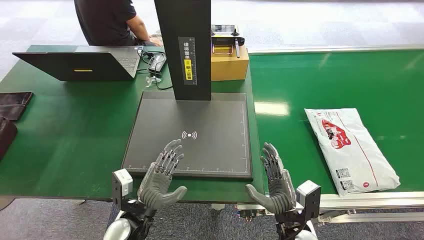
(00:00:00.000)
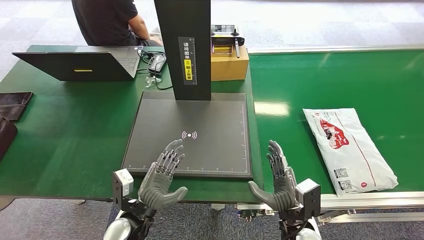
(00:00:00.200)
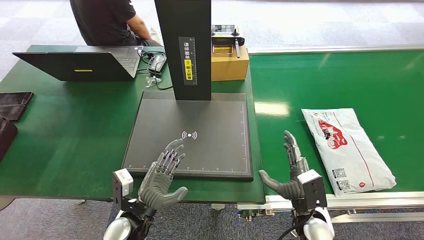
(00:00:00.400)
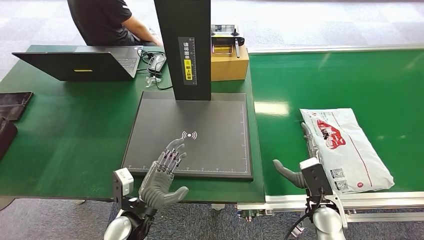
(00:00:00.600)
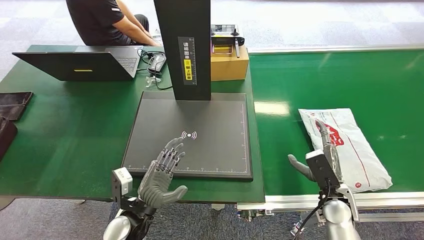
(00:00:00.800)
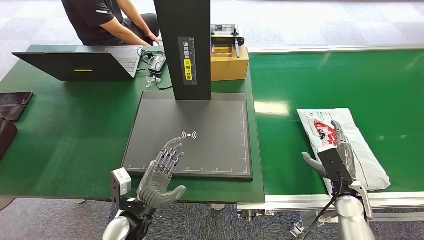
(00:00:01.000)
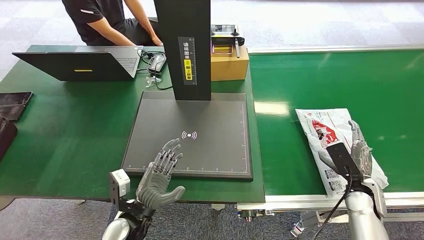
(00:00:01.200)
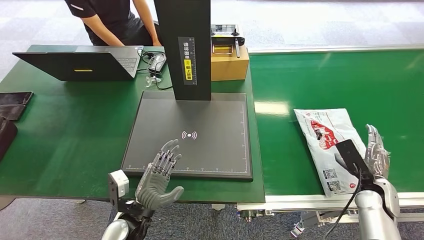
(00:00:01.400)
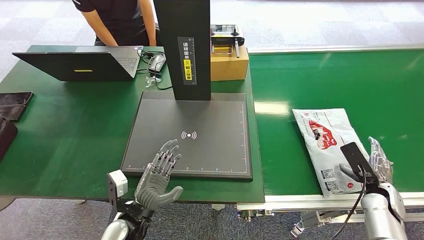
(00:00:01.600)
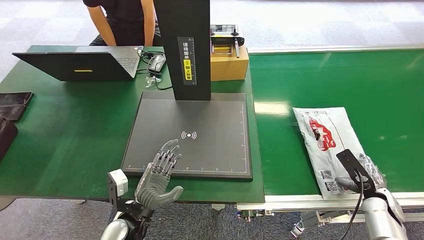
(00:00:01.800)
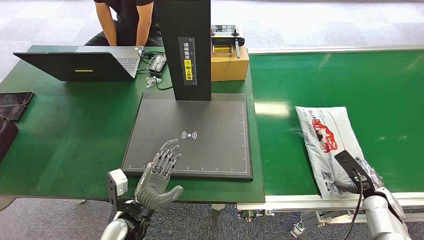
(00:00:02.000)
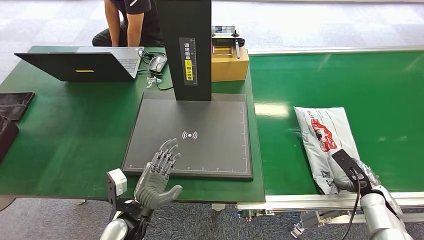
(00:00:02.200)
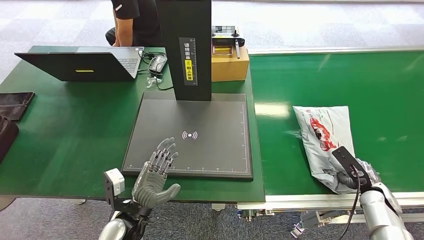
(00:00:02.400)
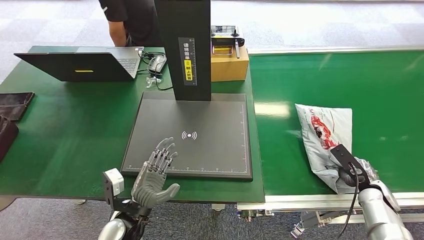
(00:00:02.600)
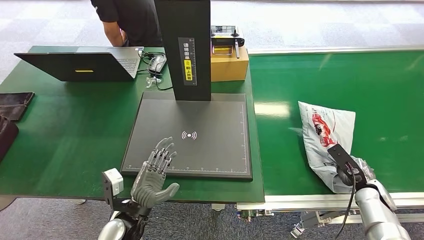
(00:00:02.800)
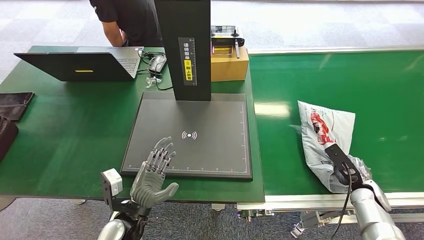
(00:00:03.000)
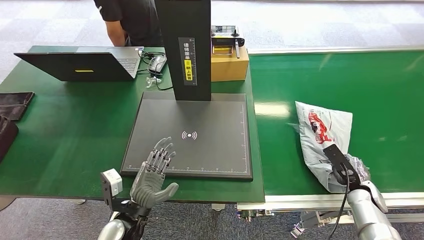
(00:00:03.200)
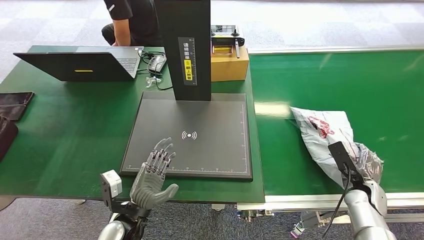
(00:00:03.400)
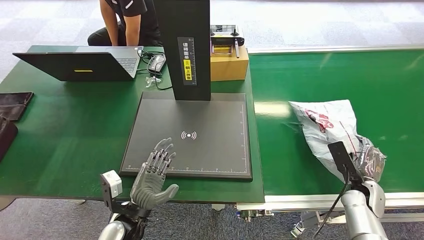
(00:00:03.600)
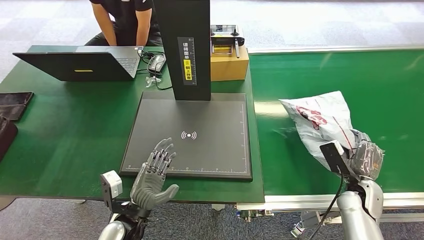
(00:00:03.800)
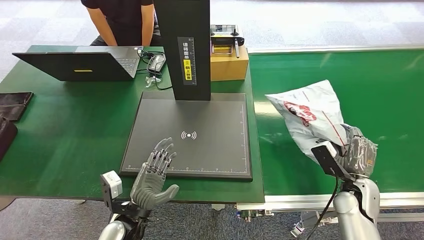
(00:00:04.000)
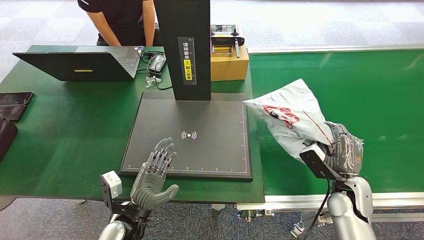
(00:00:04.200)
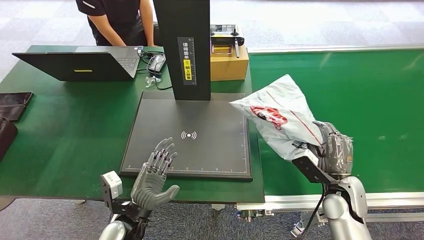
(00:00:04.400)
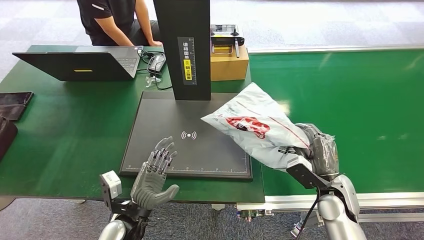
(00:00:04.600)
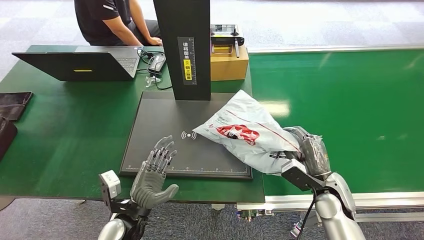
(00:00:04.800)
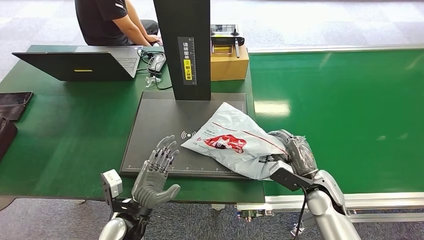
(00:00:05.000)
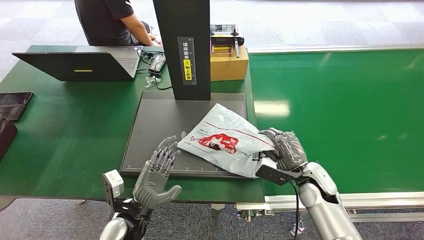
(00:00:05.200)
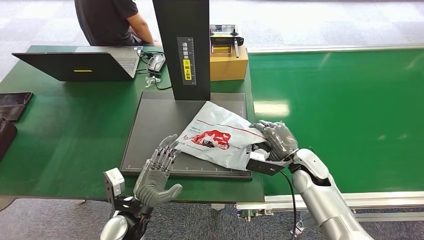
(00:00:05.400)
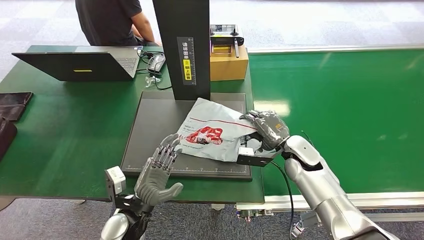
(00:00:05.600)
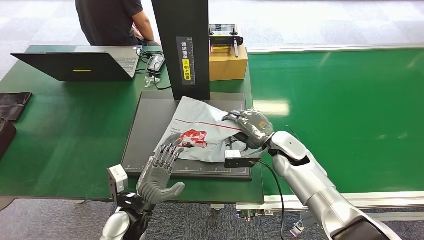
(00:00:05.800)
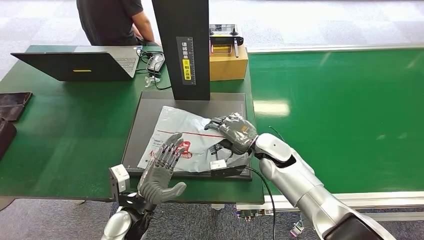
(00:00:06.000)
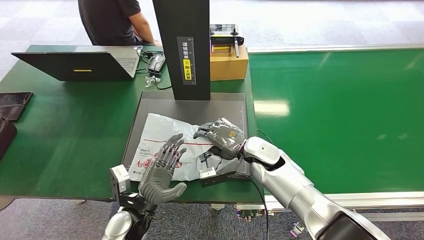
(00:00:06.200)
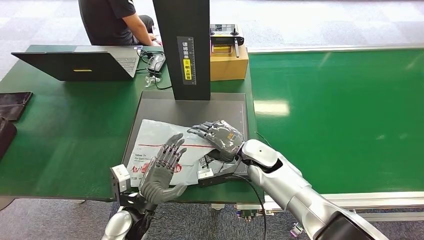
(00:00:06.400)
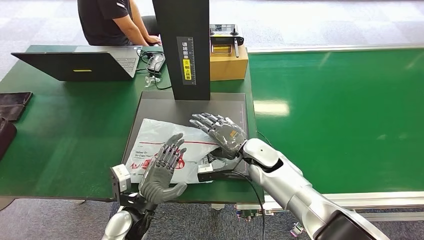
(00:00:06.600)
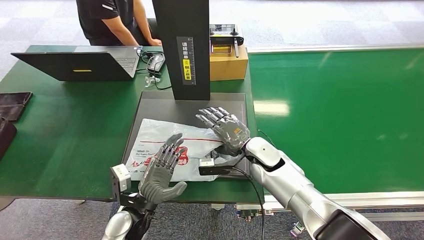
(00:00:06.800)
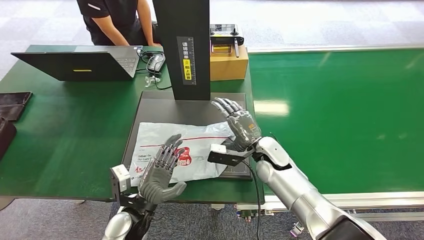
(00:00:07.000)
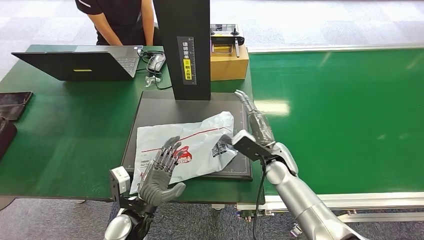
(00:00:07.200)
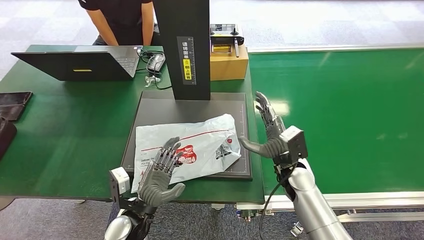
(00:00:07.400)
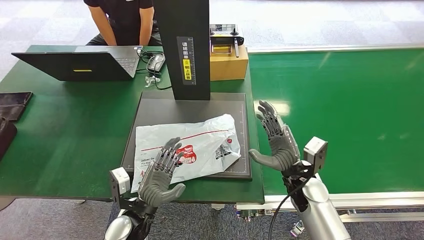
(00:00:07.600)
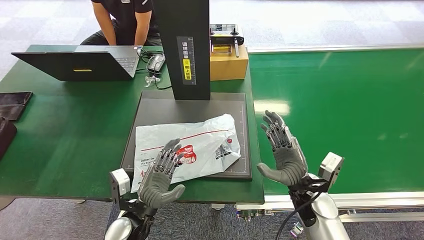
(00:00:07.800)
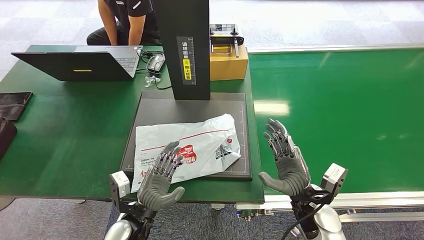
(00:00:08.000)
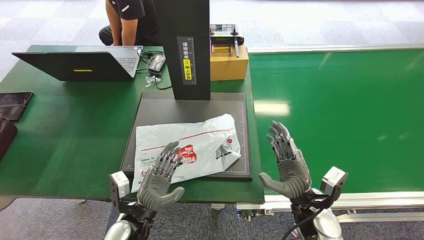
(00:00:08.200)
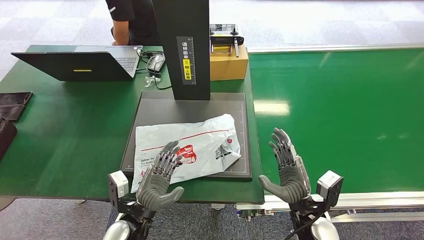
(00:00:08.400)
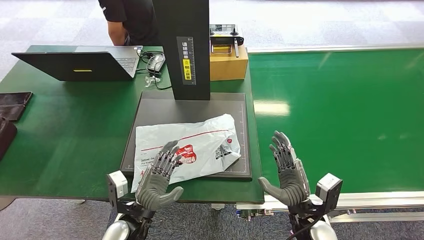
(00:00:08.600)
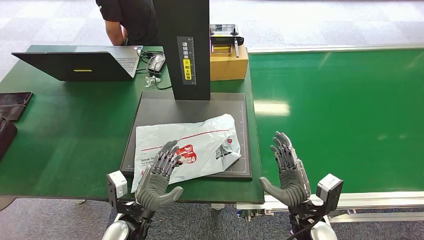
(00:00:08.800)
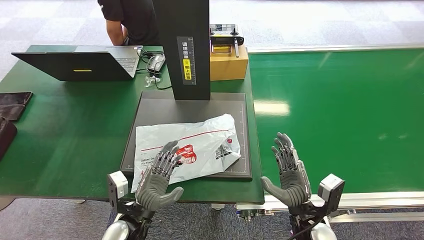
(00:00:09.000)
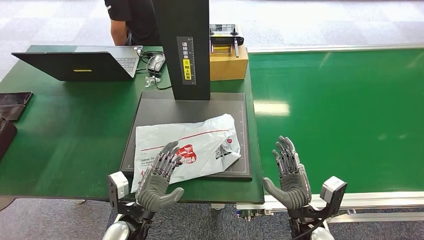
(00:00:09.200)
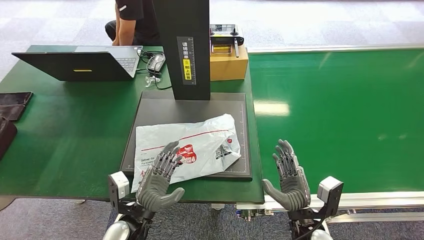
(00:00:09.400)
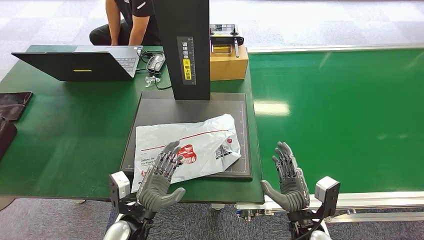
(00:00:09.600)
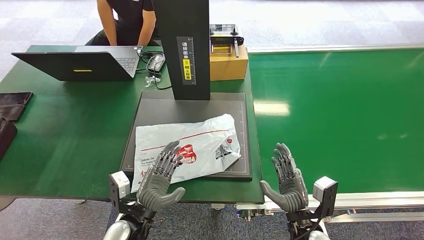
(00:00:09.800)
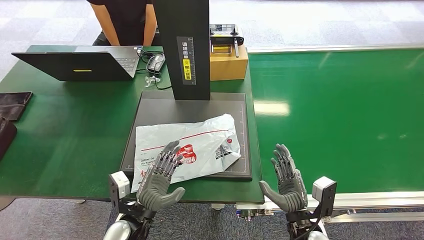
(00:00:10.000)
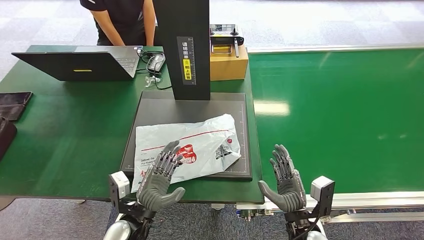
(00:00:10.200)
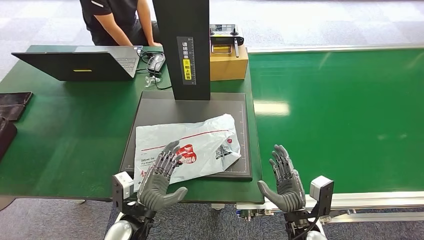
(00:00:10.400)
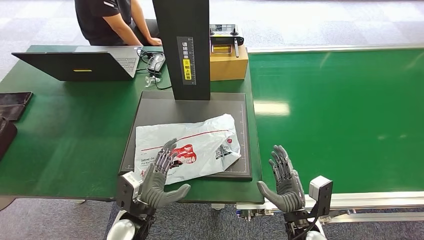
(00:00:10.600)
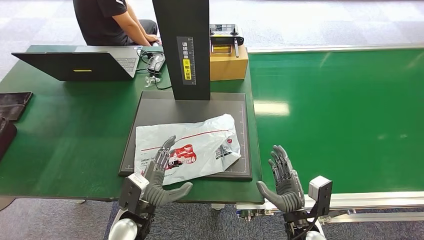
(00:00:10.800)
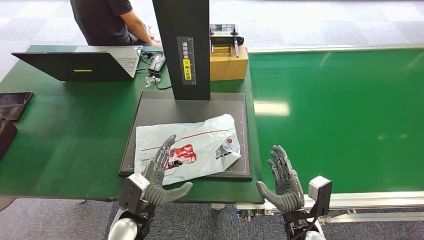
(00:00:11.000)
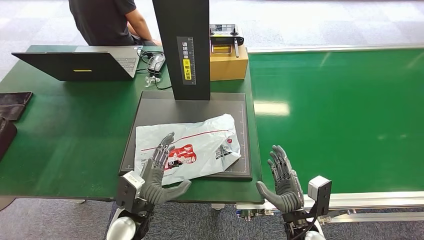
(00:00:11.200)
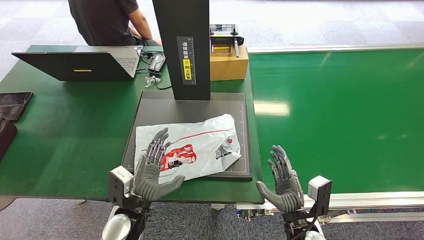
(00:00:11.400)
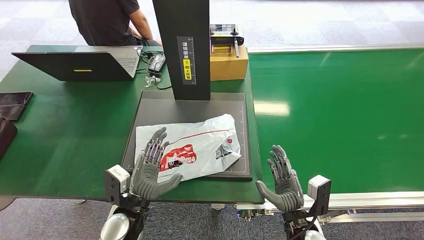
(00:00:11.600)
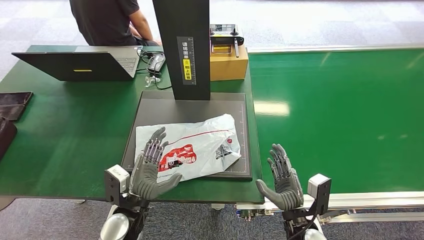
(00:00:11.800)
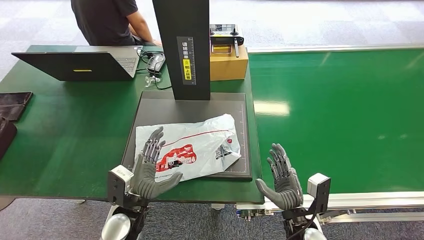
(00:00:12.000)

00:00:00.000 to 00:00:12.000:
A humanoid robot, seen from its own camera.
Task of the whole recording: Weigh the package on the weighing device and place it in the left basket.
Step, 00:00:00.000 to 00:00:04.400: Pick up the package from the conveyor belt.
Step, 00:00:04.600 to 00:00:07.600: Place the package onto the inbound machine.
00:00:03.000 to 00:00:04.400: The right hand shifts roughly 15 cm to the left and upward.
00:00:06.000 to 00:00:07.600: The right hand heads backward and to the right, covering some 10 cm.
00:00:07.600 to 00:00:09.000: The right hand shifts roughly 10 cm backward.
00:00:09.000 to 00:00:10.400: The hands stay close to where they were, moving slightly.
00:00:10.400 to 00:00:12.000: There are only small adjustments of the hands.

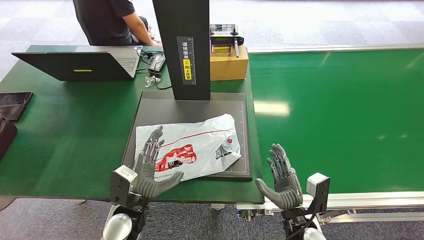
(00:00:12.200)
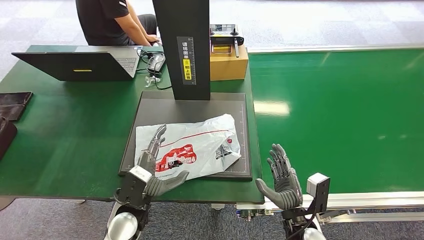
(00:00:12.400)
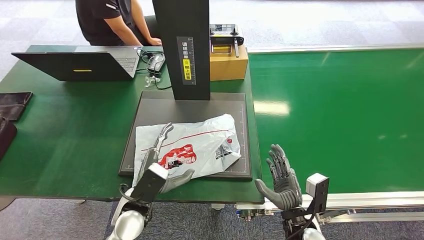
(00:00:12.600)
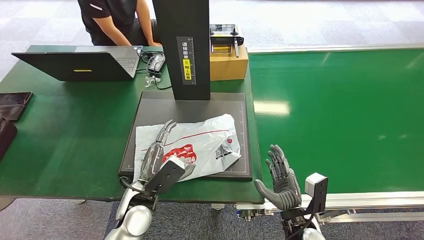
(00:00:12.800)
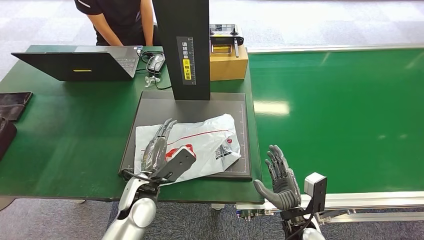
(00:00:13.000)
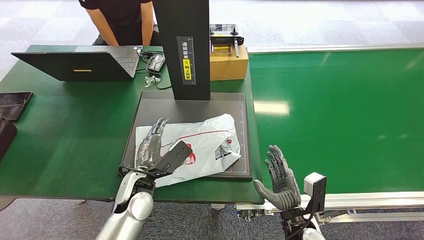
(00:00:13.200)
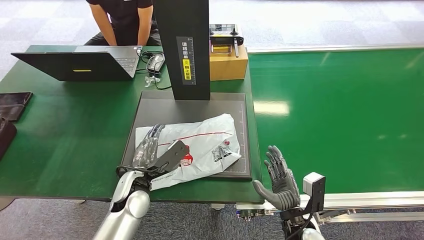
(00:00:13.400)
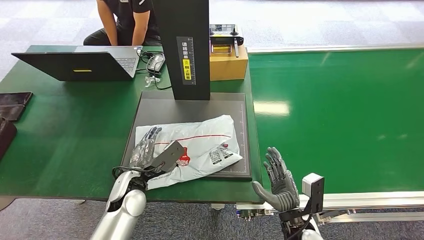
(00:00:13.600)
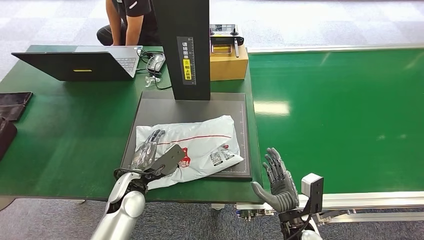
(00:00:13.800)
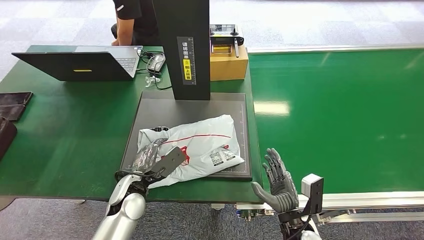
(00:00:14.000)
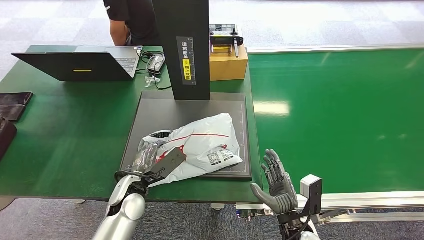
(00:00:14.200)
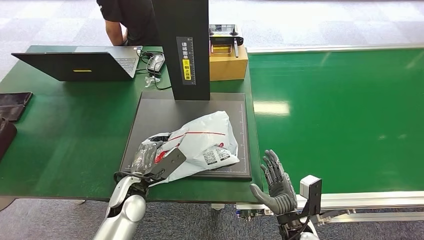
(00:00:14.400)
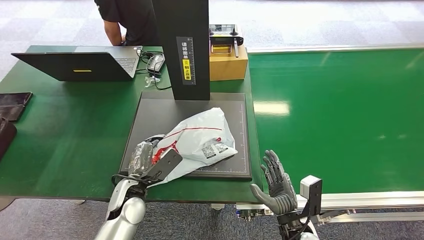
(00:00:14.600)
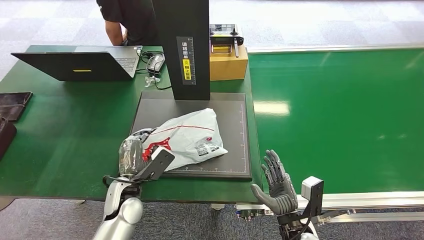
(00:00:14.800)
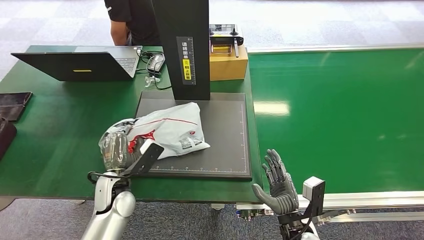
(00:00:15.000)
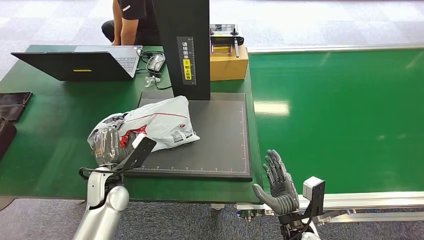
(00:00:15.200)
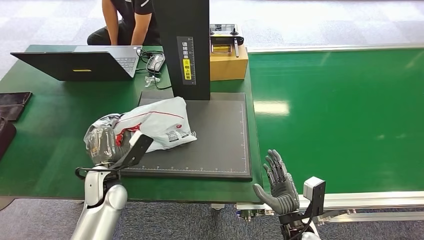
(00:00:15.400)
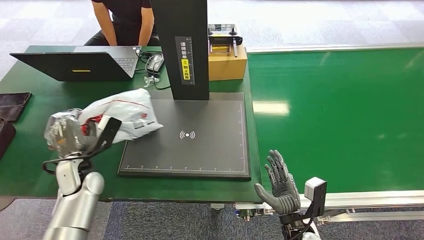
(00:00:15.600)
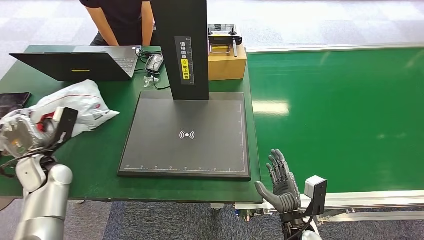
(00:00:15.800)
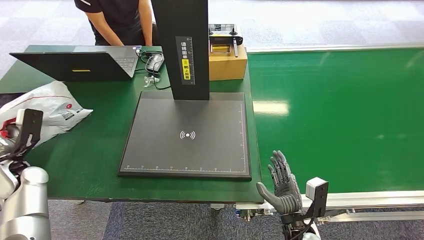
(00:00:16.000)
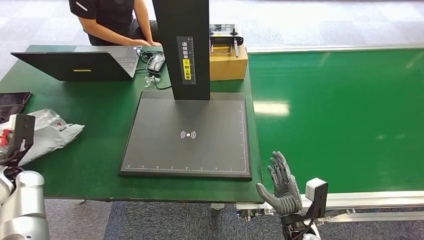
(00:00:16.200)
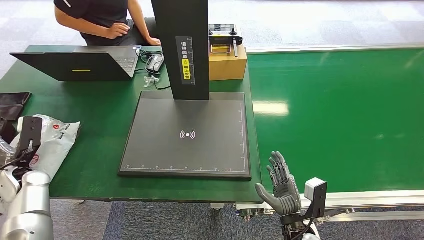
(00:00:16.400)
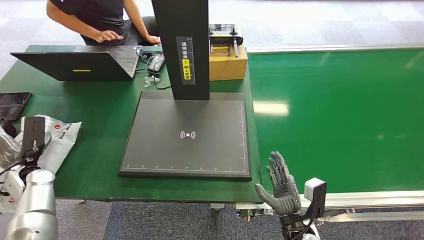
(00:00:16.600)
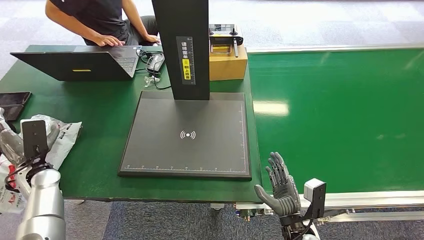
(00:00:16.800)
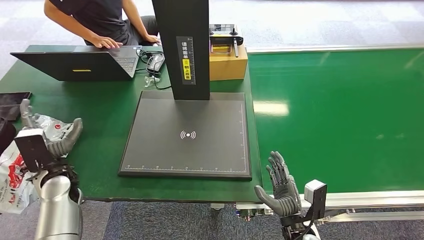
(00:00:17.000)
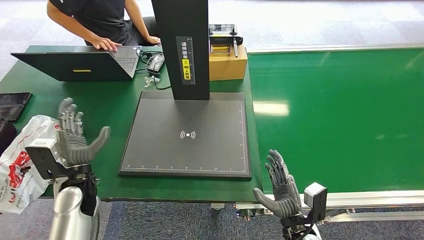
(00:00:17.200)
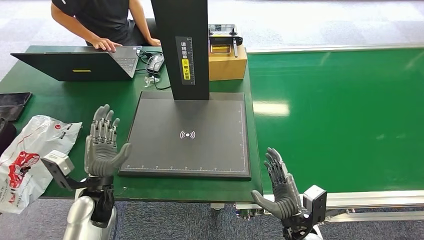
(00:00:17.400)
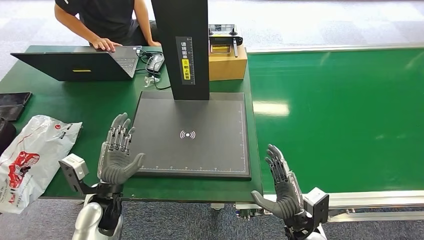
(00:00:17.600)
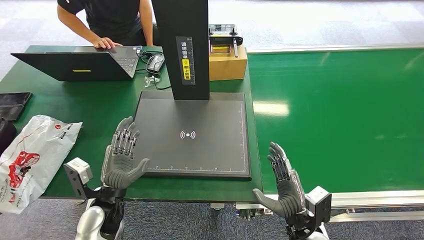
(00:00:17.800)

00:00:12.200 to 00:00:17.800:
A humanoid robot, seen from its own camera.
Task of the whole recording: Weigh the package on the weighing device and place it in the left basket.
Step, 00:00:12.200 to 00:00:15.000: Pick up the package from the inbound machine.
Step, 00:00:15.200 to 00:00:17.800: Place the package into the parcel locker.
00:00:12.200 to 00:00:13.600: The left hand goes some 5 cm forward.
00:00:16.400 to 00:00:17.800: The left hand heads to the right, covering approximately 25 cm.
